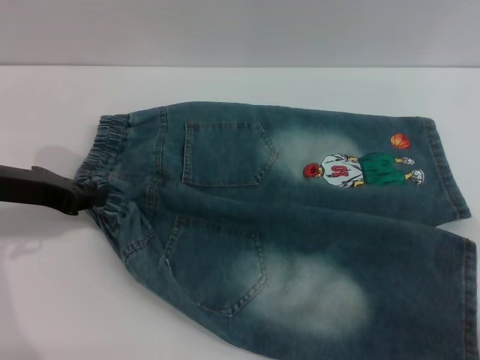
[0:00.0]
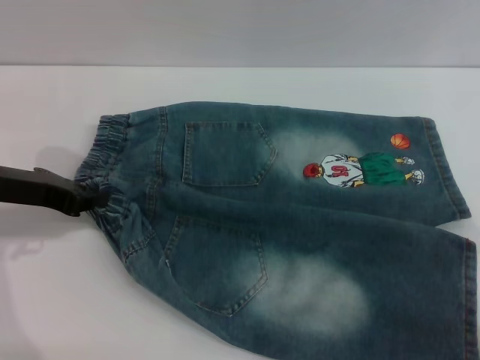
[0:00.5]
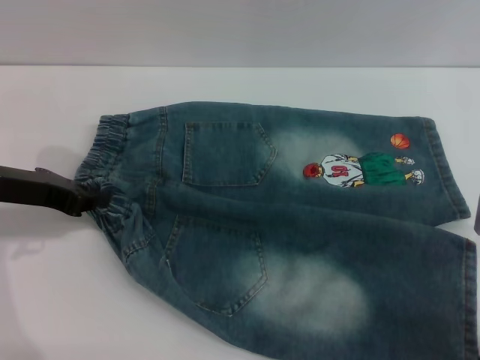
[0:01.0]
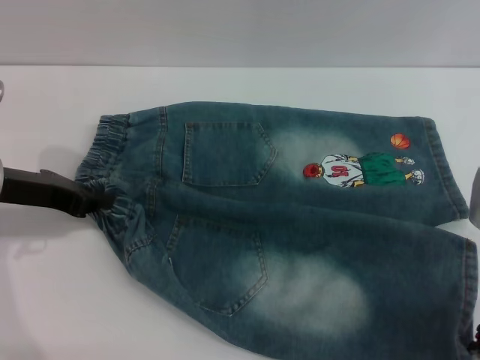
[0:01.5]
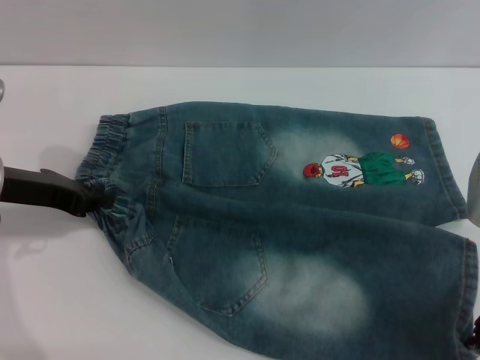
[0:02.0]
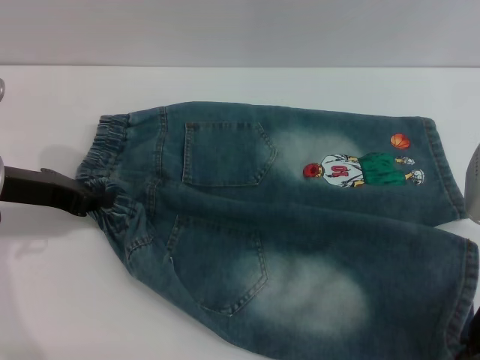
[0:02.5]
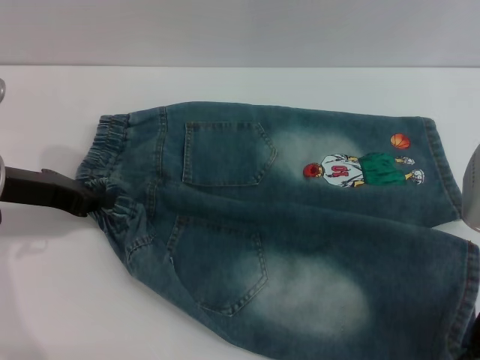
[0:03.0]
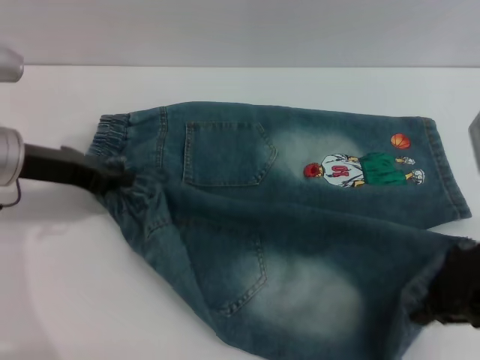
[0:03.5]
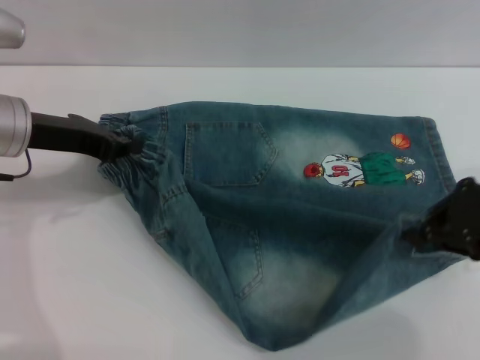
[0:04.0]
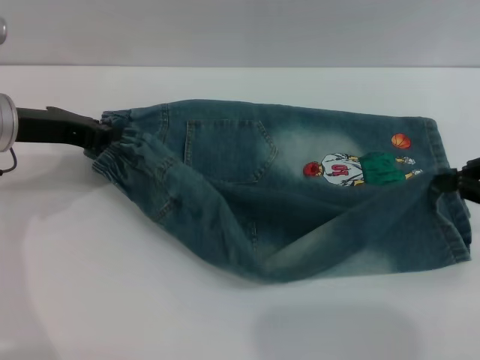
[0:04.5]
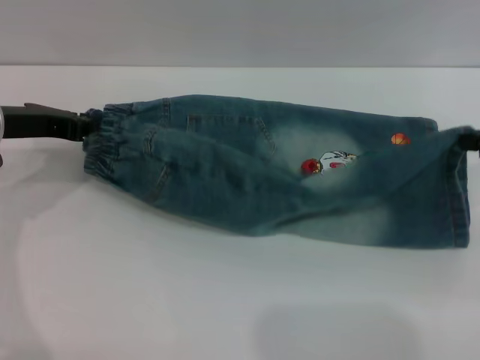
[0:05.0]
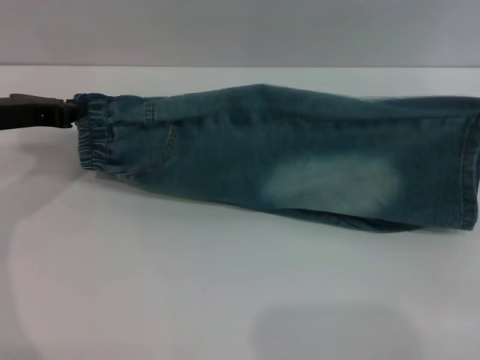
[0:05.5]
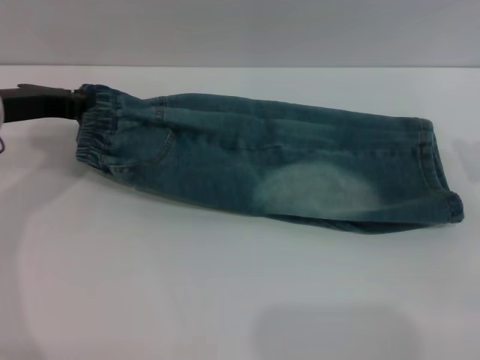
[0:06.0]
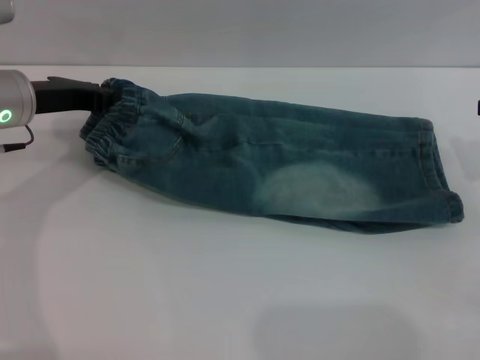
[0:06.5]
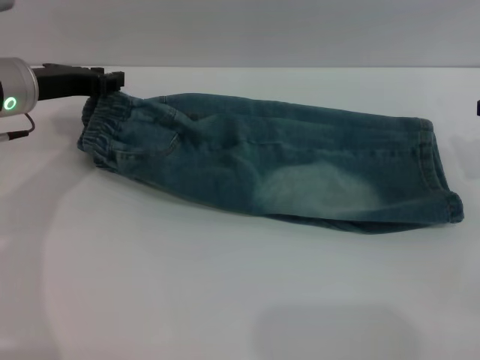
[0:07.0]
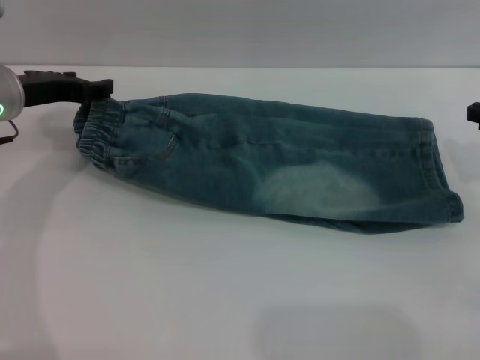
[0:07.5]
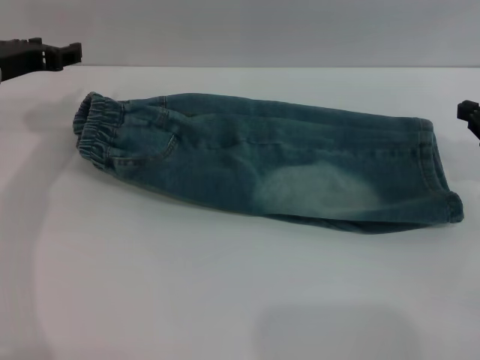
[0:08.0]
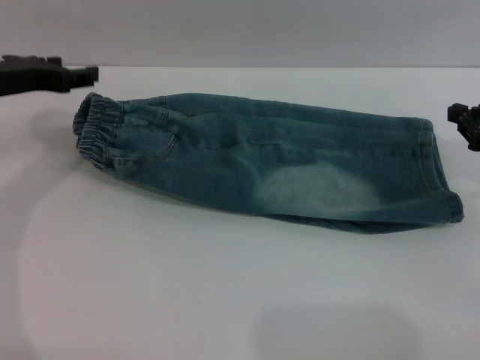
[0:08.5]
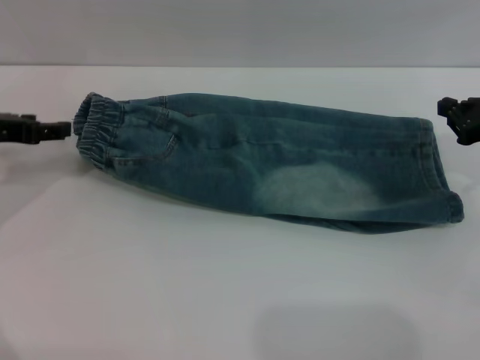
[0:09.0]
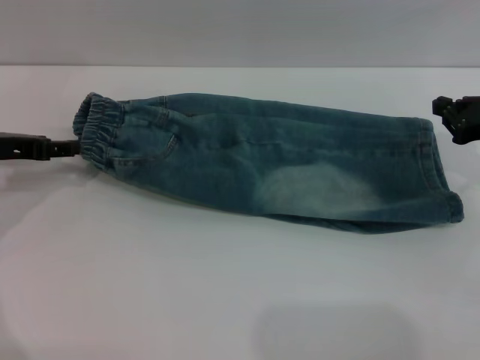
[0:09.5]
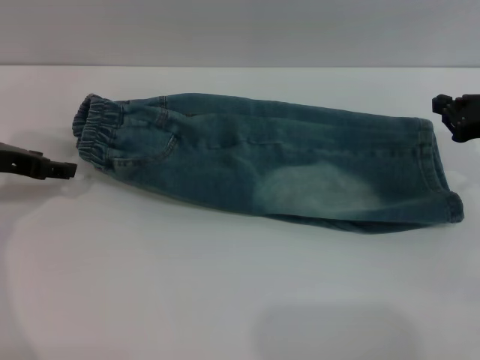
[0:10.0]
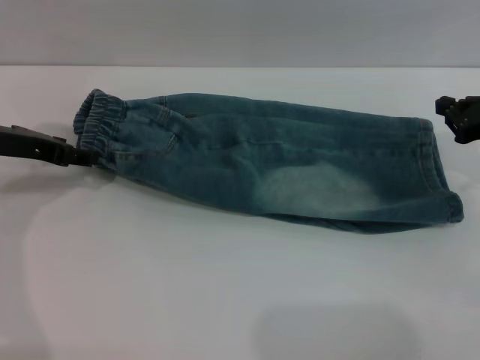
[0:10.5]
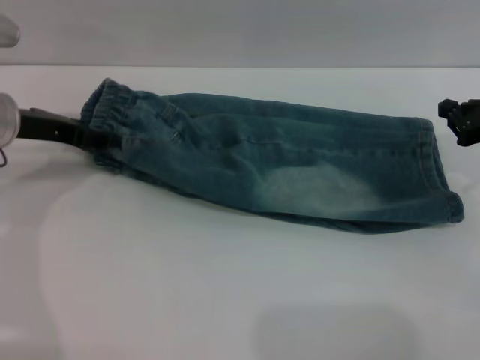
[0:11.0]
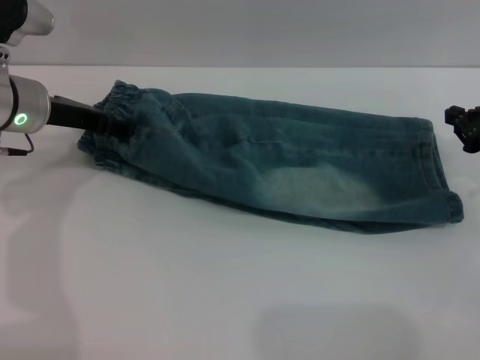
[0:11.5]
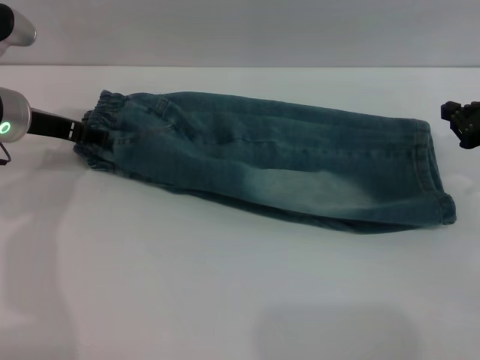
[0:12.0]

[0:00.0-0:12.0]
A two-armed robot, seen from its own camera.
Step, 0:00.0 to 0:08.0: Fold the bottom of the pants upward with both grippers.
0:00.0 to 0:02.0: The grippers move only a little.
0:02.0 to 0:04.0: The right gripper changes place by about 5 cm, and closes. Meanwhile the left gripper moves about 5 cm.
0:04.0 to 0:06.0: The right gripper heads to the right, covering approximately 10 cm.
0:06.0 to 0:08.0: The left gripper opens its fingers.
0:08.0 to 0:10.0: The left gripper shifts by roughly 5 cm.
0:10.0 to 0:12.0: The left gripper ends up roughly 5 cm from where it was.

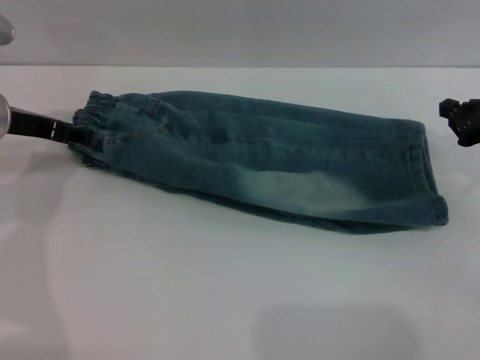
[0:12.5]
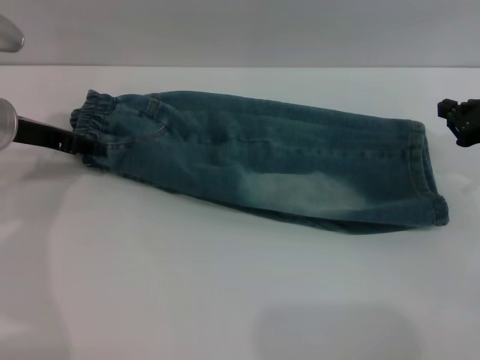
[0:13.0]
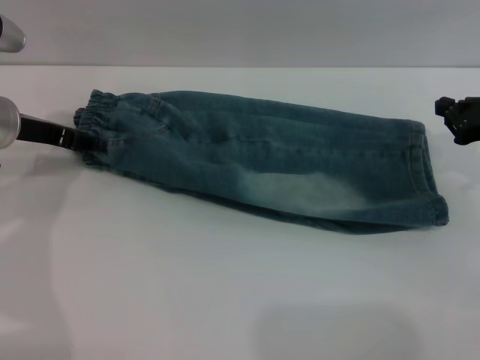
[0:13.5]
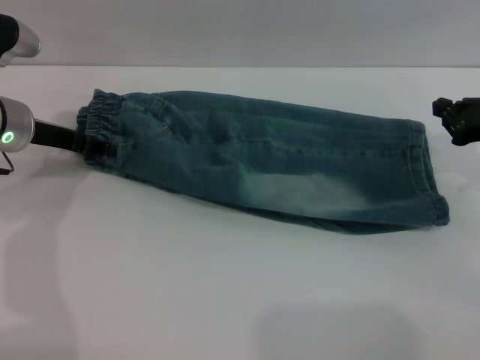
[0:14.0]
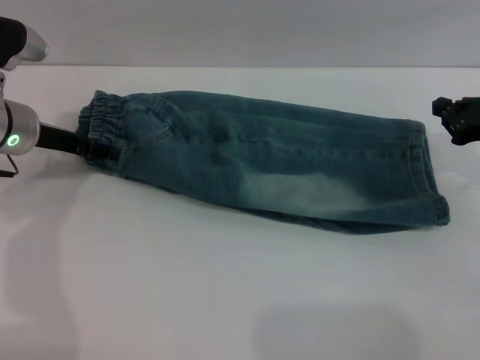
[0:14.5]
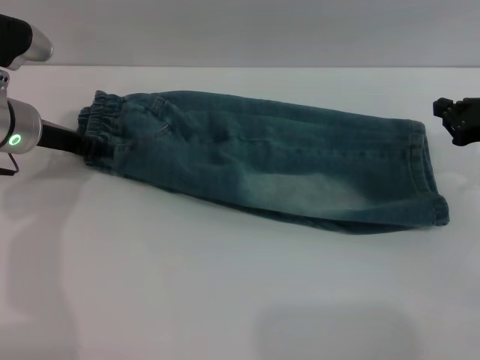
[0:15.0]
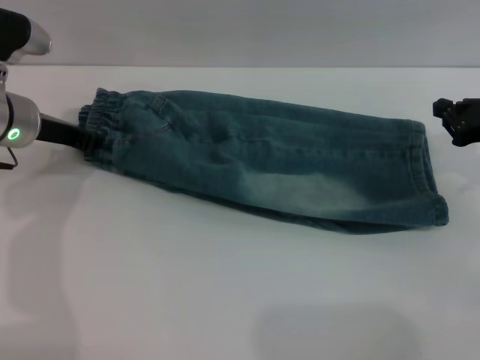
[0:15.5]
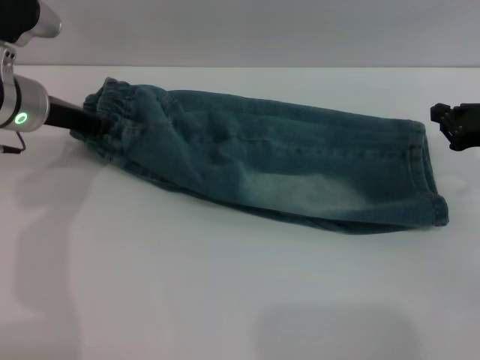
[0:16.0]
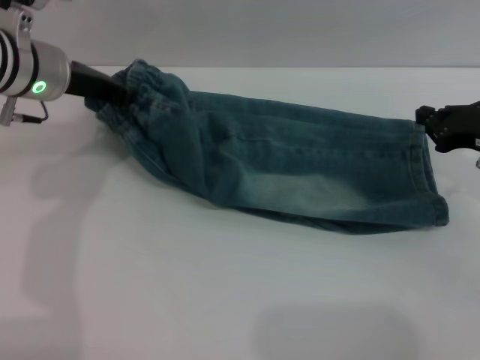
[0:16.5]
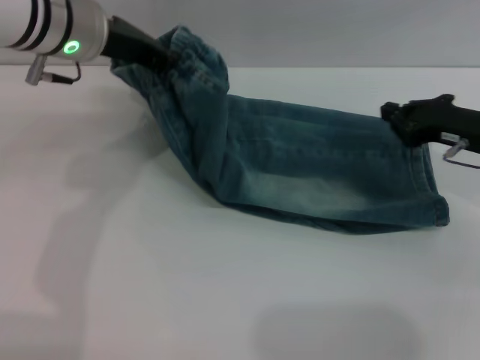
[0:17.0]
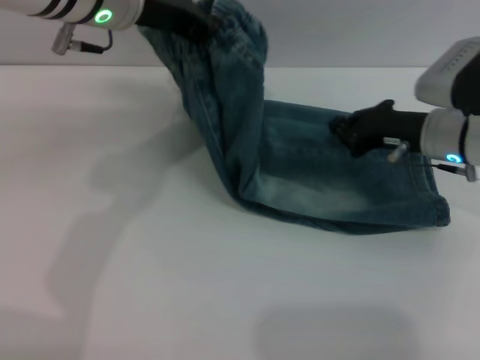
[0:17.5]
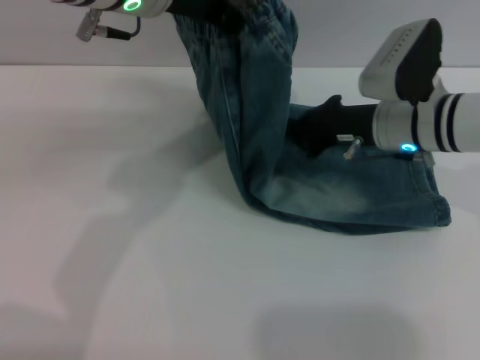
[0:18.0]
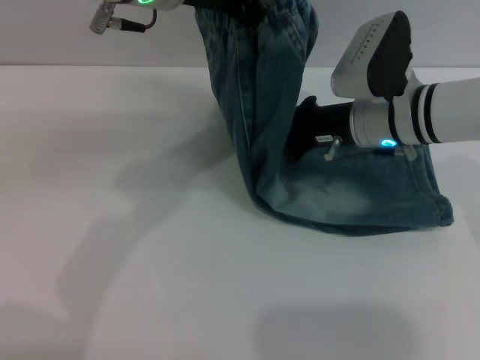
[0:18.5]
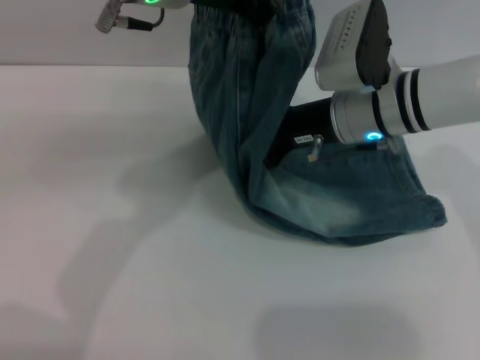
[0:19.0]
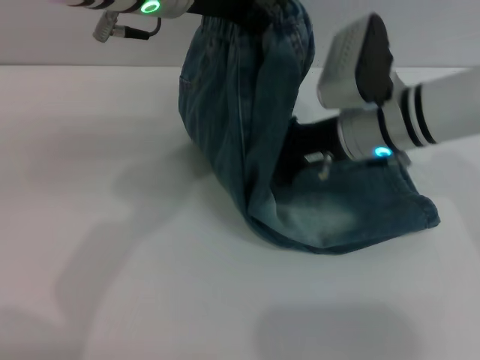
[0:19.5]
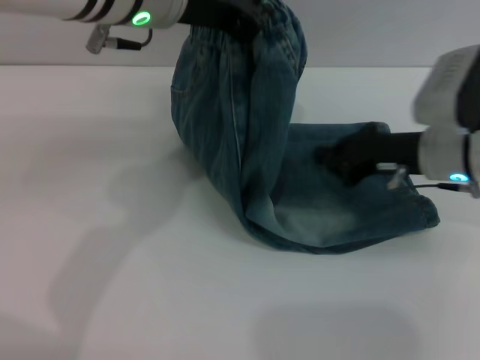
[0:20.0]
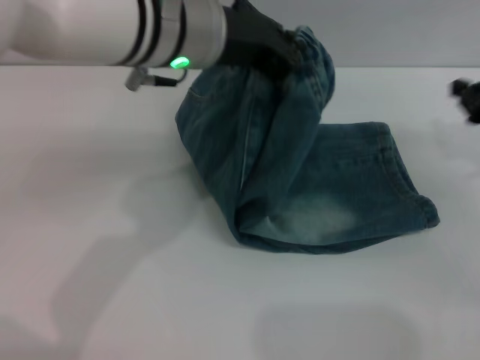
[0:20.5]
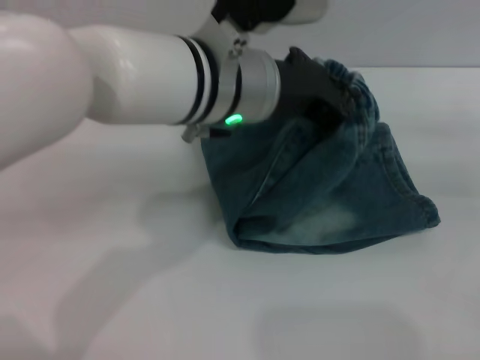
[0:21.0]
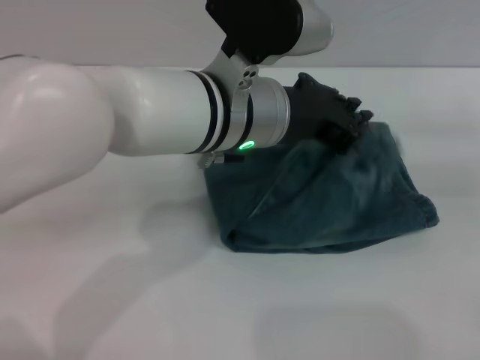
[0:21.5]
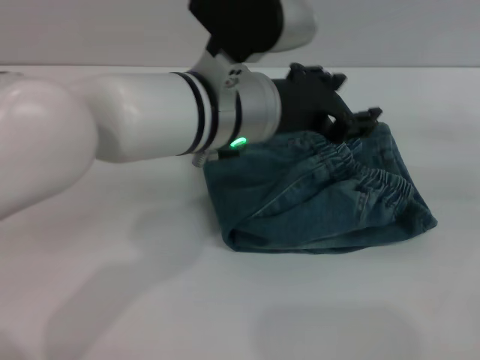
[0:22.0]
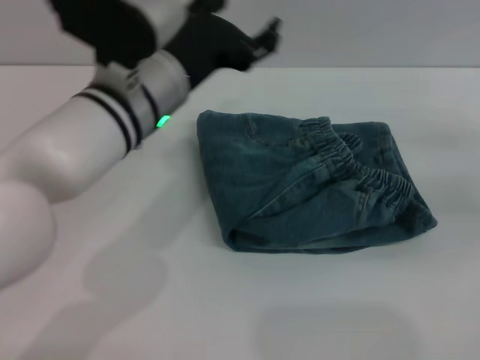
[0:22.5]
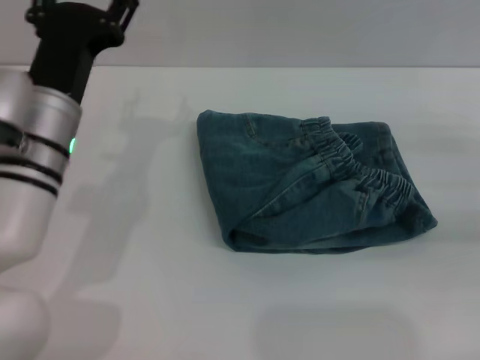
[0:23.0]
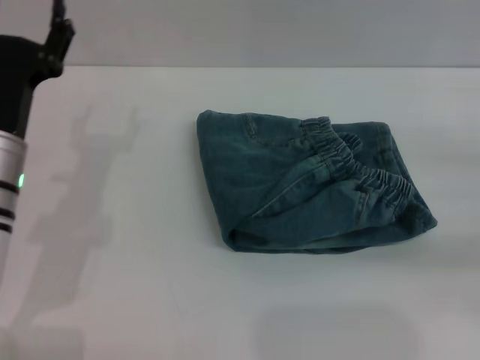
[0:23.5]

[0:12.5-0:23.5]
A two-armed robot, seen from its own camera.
Step, 0:12.5 to 0:21.5: Fold the pants from left to right with the left gripper.
0:12.5 to 0:14.5: There are only small adjustments of the grippers.
0:14.5 to 0:16.0: The left gripper closes its fingers.
0:16.0 to 0:18.0: The left gripper goes some 20 cm upward and to the right. Meanwhile the right gripper heads to the left, covering some 15 cm.
0:18.0 to 0:20.0: The right gripper shifts by roughly 5 cm.
0:20.0 to 0:21.5: The left gripper shifts roughly 10 cm downward and to the right; the right gripper shifts approximately 20 cm to the right.
0:21.5 to 0:23.5: The right gripper moves backward, roughly 5 cm, while the left gripper goes roughly 20 cm to the left and downward, and opens.

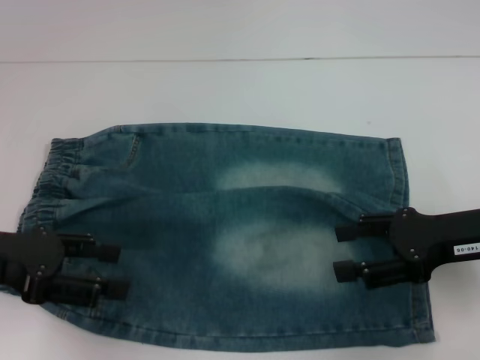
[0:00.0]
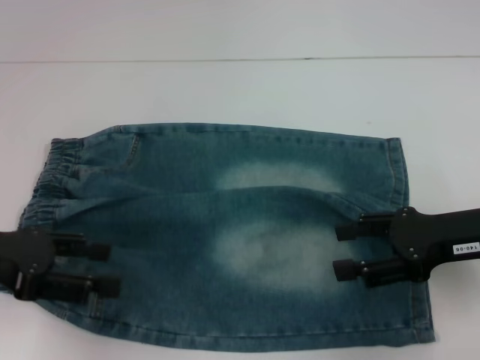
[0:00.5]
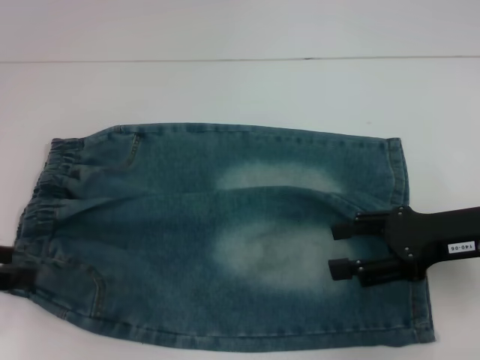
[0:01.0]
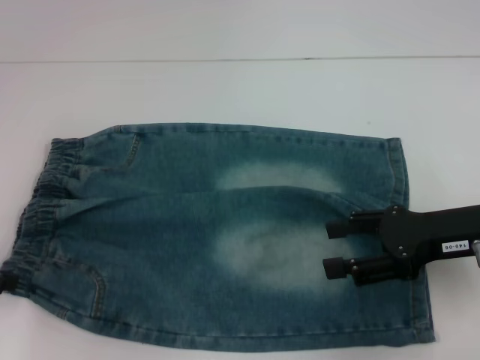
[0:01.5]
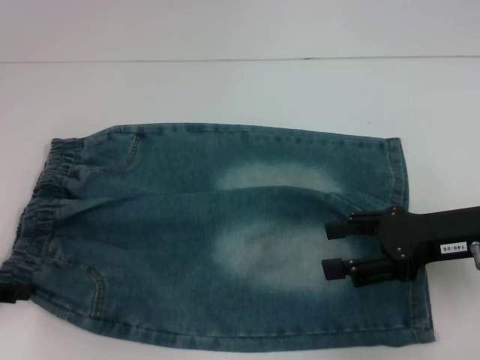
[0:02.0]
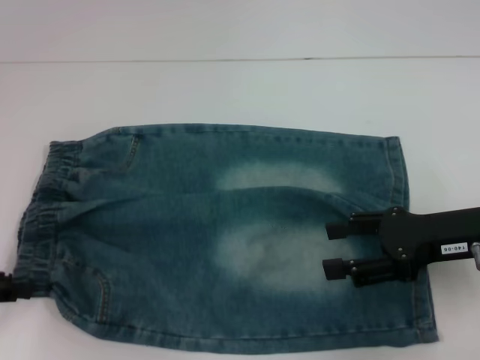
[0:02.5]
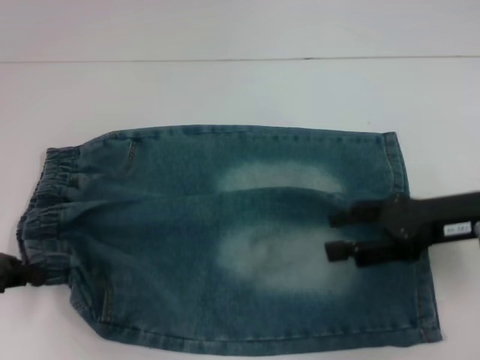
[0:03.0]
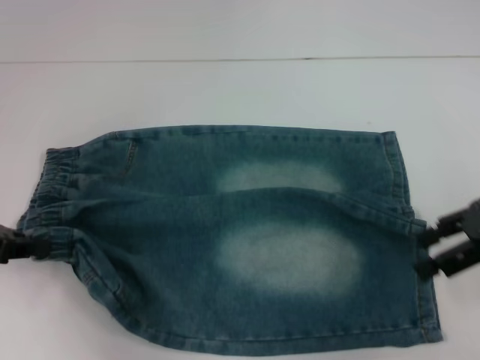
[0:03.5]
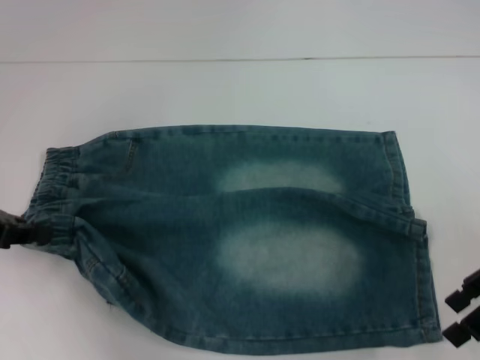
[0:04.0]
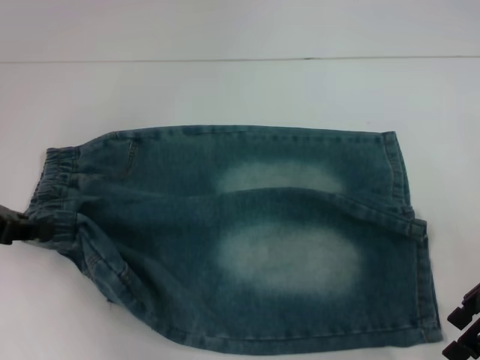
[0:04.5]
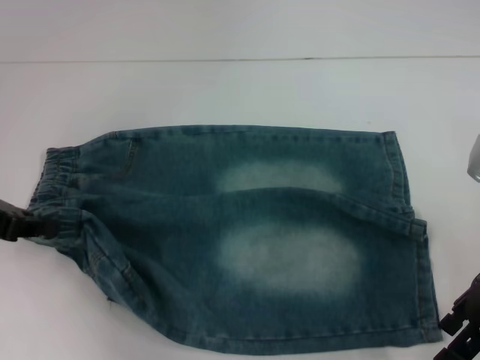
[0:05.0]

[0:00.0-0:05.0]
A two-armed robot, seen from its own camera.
Step, 0:00.0 to 0:02.5: Hold the lower left waistband with your left hand.
0:00.0 to 0:02.5: The left gripper is displaced to the left by roughly 5 cm, and closes up.
0:02.5 to 0:05.0: The left gripper shifts by some 5 cm, and closes up.
